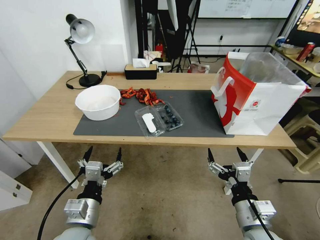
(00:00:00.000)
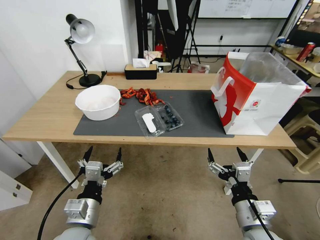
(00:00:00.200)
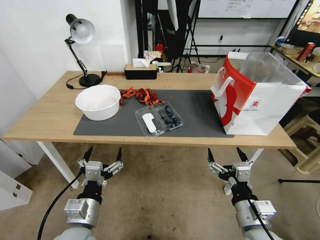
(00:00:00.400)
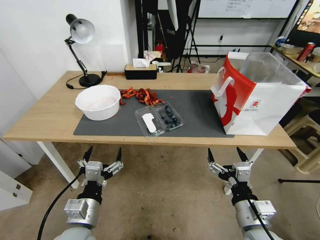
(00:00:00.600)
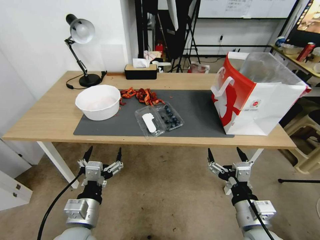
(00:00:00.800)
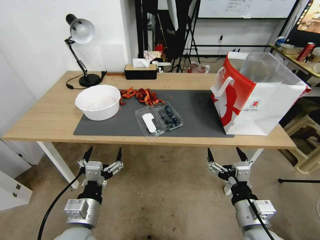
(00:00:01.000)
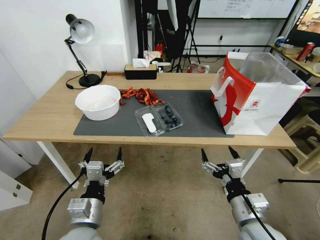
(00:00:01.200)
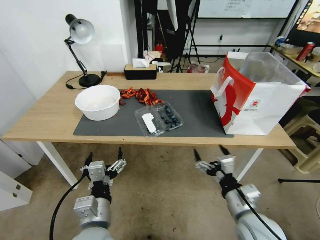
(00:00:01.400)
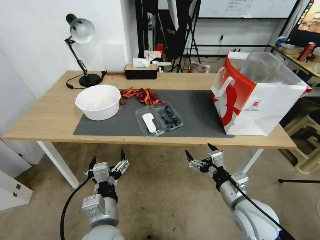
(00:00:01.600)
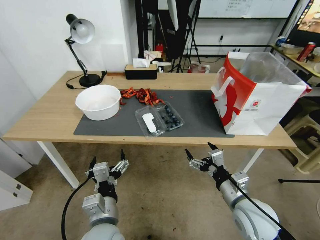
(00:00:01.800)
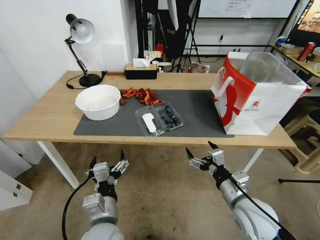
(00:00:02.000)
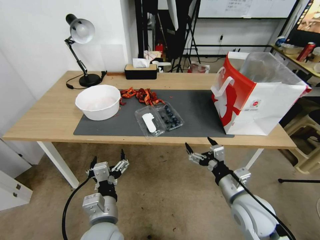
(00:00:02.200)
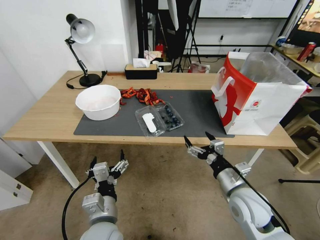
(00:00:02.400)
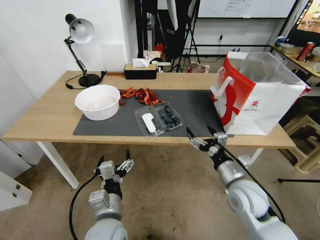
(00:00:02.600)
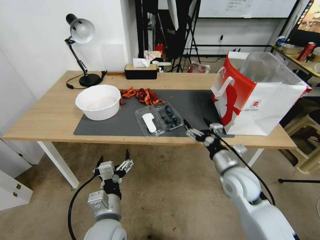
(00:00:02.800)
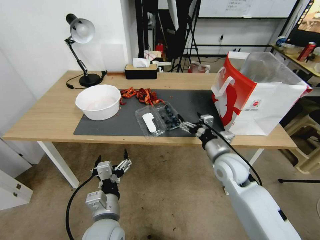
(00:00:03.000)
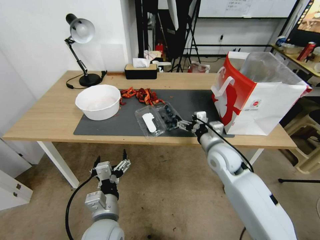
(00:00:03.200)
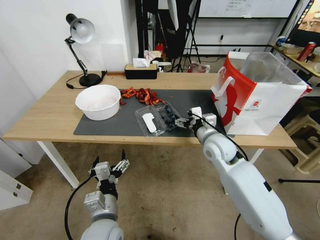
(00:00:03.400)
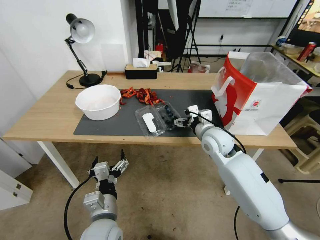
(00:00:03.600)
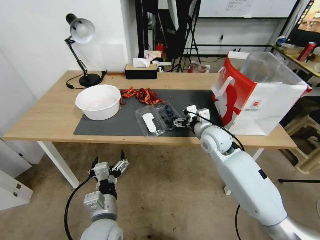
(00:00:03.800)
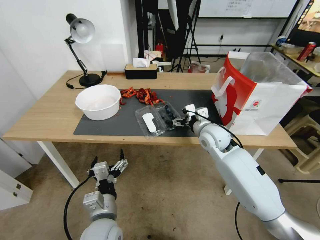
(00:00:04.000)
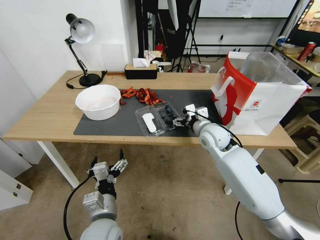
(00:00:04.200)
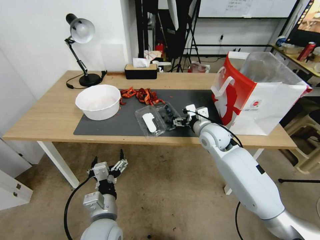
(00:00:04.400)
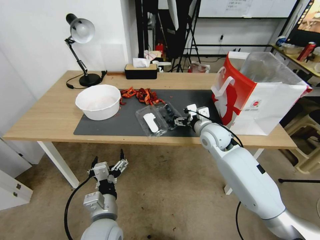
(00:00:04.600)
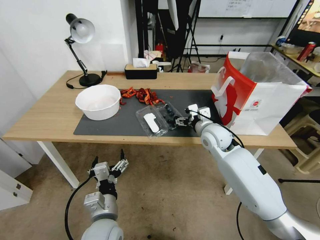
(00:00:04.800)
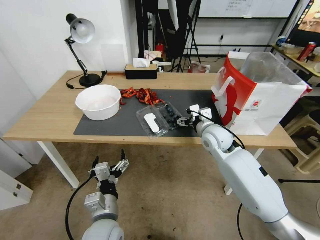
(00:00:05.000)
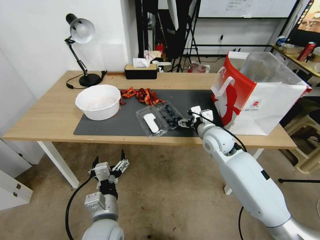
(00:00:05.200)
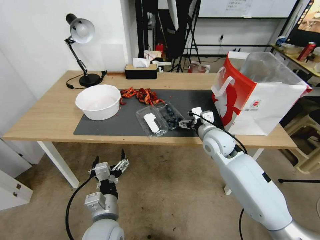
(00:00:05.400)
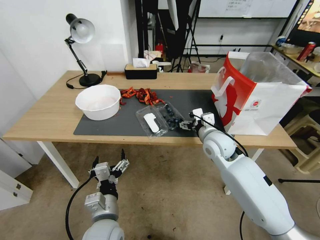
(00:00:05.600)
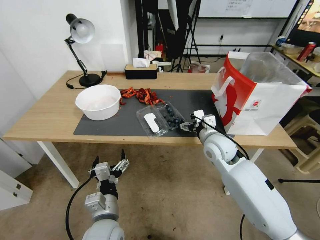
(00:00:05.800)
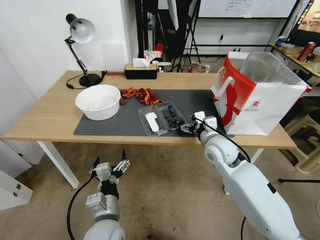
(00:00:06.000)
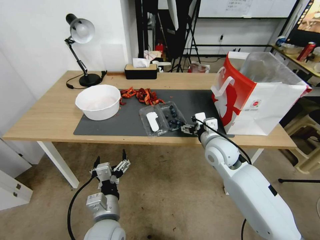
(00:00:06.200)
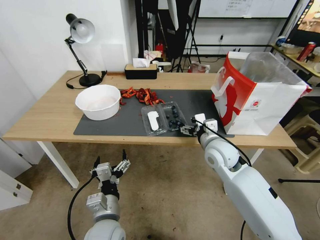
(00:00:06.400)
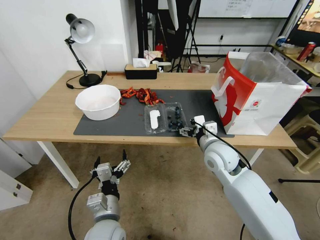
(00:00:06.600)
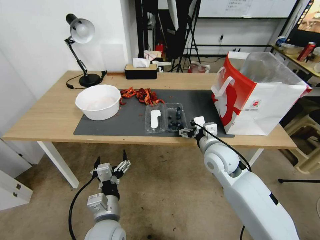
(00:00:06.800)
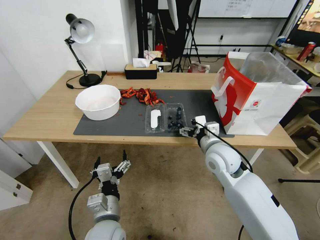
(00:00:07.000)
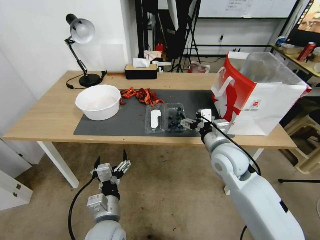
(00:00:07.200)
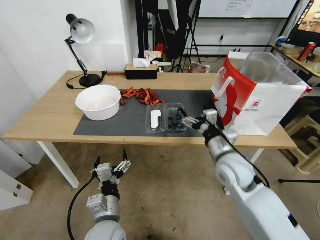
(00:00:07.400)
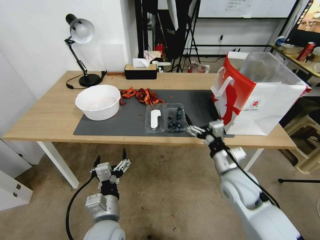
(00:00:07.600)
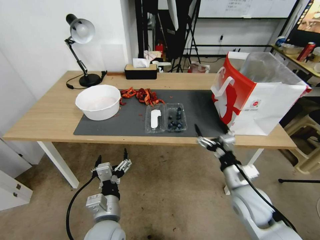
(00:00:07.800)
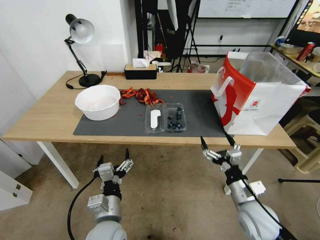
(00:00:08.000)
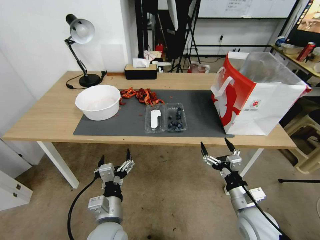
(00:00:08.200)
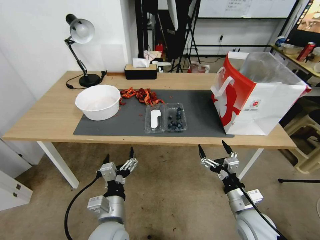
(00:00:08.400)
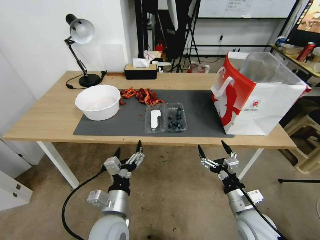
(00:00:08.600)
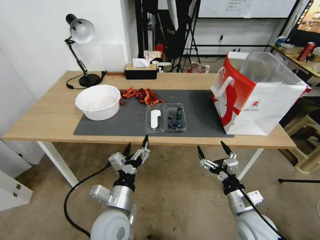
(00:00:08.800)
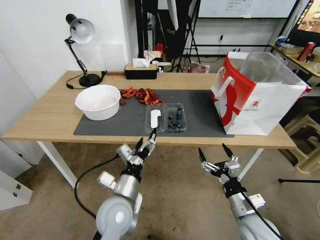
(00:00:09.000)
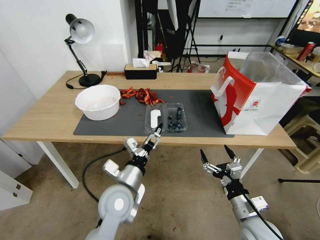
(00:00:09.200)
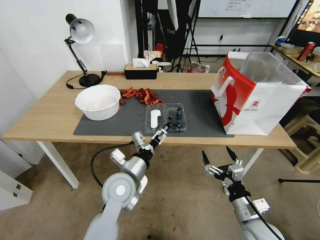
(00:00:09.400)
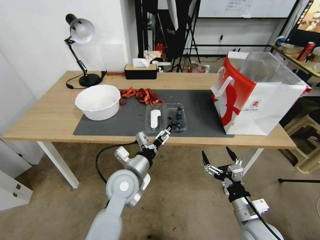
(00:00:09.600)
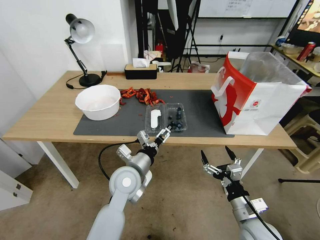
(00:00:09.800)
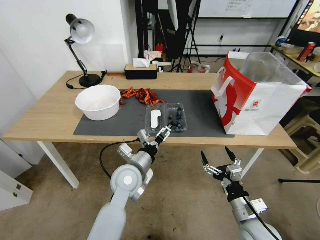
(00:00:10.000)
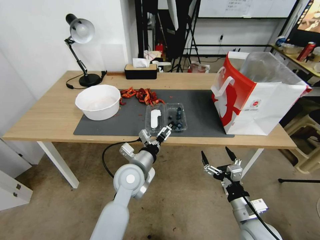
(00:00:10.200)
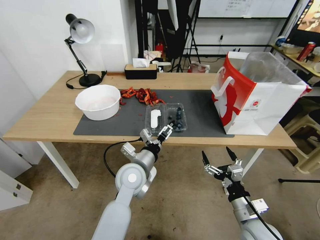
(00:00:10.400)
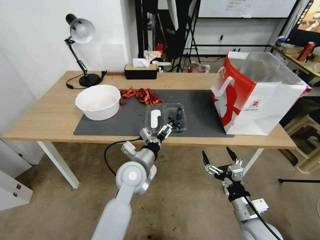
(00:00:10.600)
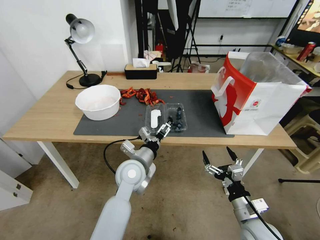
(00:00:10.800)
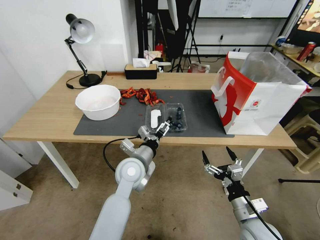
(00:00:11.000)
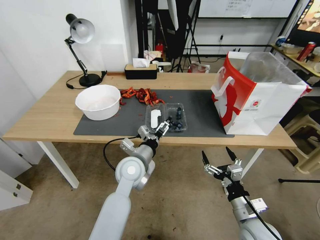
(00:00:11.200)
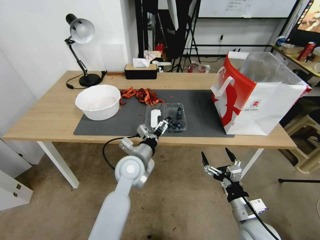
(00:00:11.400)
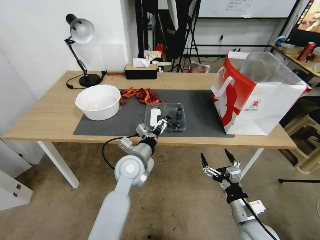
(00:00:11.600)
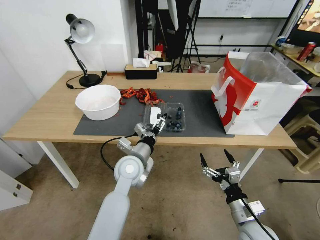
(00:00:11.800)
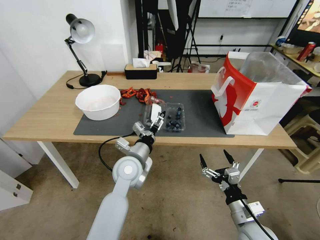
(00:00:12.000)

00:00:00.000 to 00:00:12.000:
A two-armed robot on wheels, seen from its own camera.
Task of the whole recording: Close the takeout container lid, then place the container into the takeout bag.
00:00:01.600 to 00:00:03.000: The right gripper goes approximately 15 cm forward.
00:00:03.000 to 00:00:04.400: The right gripper goes roughly 10 cm forward.
00:00:04.400 to 00:00:06.000: The right gripper shifts some 5 cm backward.
00:00:06.000 to 00:00:07.600: The right gripper travels backward by roughly 10 cm.
00:00:07.600 to 00:00:09.000: The left gripper shifts by some 5 cm. Meanwhile the right gripper is displaced backward and downward by roughly 15 cm.
00:00:09.000 to 00:00:10.400: The left gripper travels forward by approximately 10 cm.
00:00:10.400 to 00:00:12.000: The grippers move only a little.

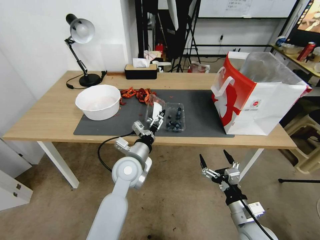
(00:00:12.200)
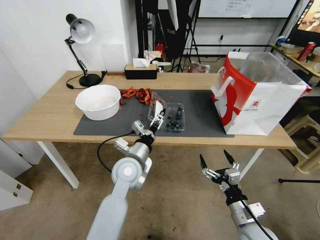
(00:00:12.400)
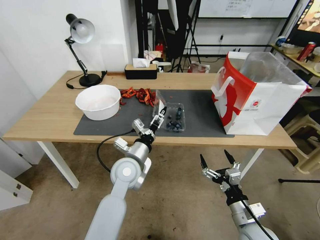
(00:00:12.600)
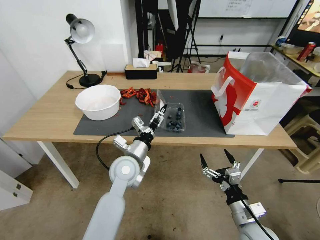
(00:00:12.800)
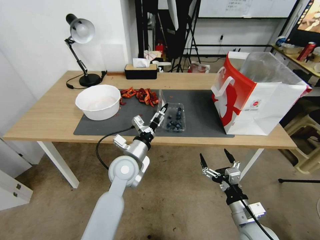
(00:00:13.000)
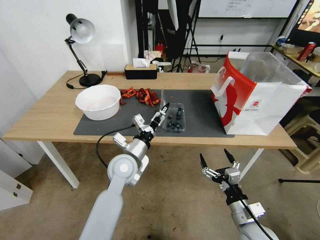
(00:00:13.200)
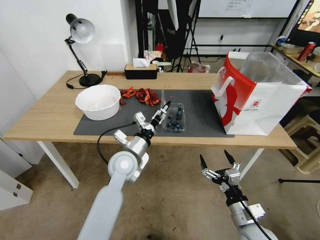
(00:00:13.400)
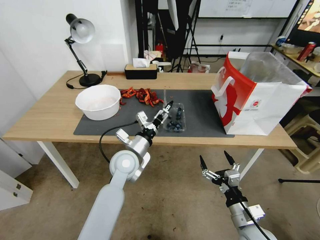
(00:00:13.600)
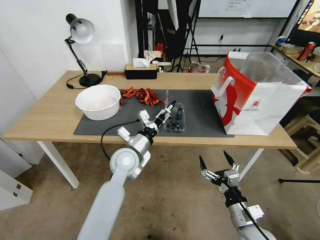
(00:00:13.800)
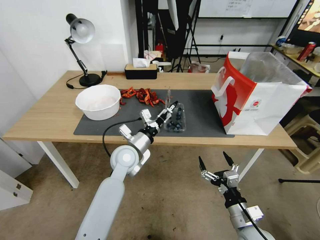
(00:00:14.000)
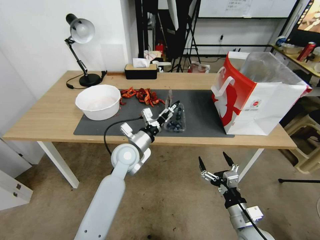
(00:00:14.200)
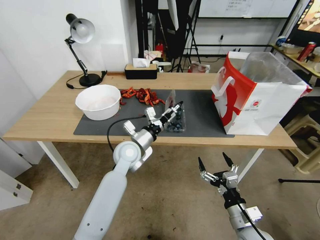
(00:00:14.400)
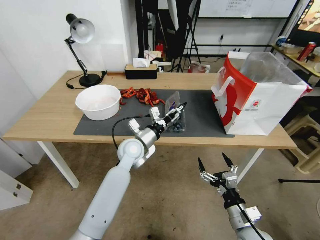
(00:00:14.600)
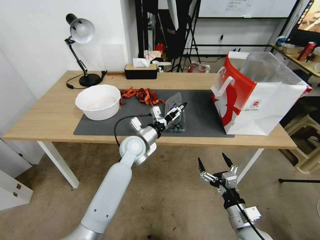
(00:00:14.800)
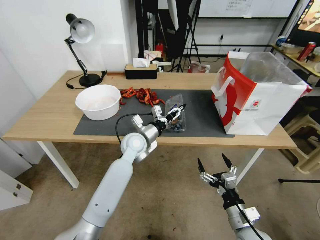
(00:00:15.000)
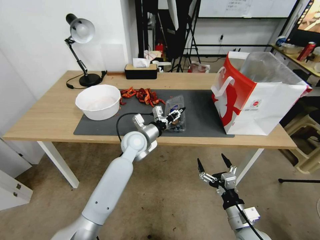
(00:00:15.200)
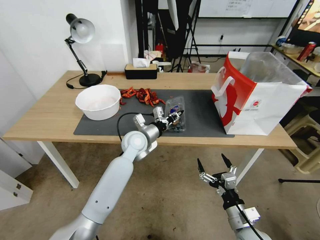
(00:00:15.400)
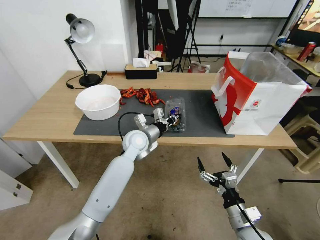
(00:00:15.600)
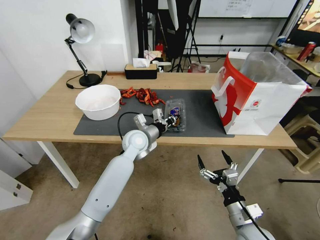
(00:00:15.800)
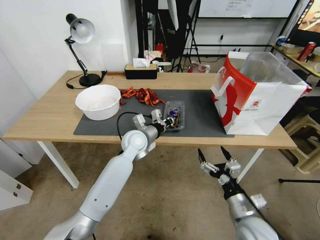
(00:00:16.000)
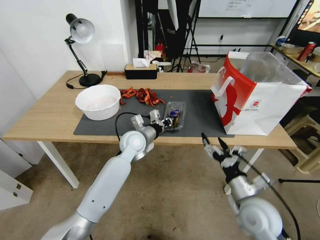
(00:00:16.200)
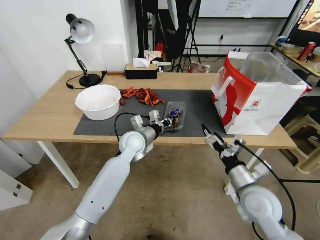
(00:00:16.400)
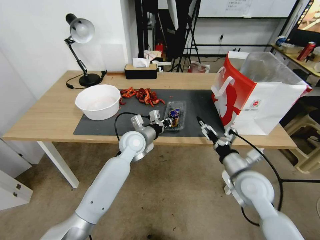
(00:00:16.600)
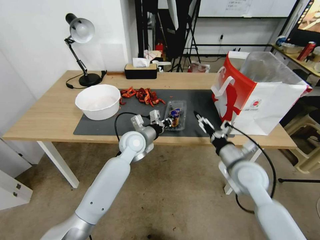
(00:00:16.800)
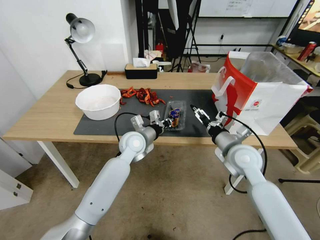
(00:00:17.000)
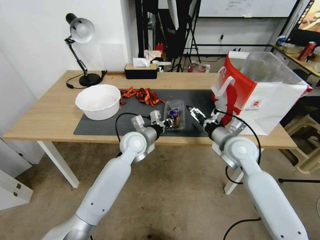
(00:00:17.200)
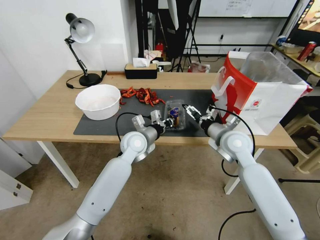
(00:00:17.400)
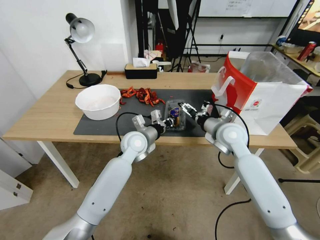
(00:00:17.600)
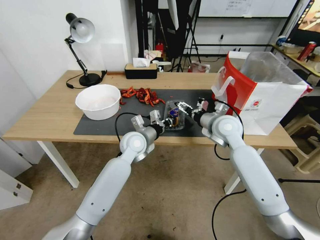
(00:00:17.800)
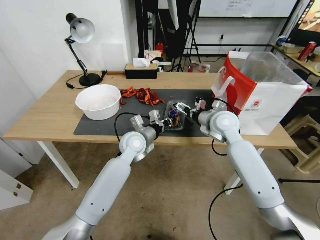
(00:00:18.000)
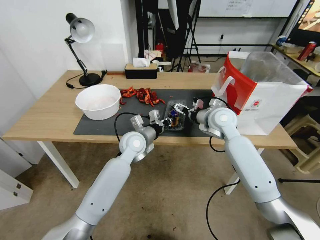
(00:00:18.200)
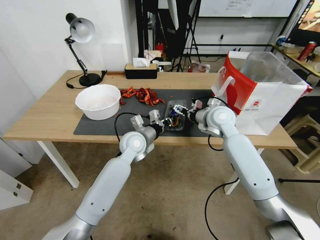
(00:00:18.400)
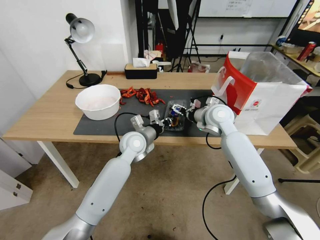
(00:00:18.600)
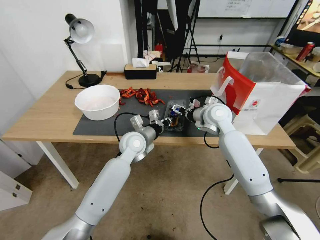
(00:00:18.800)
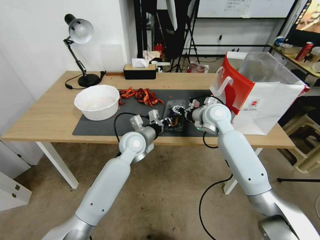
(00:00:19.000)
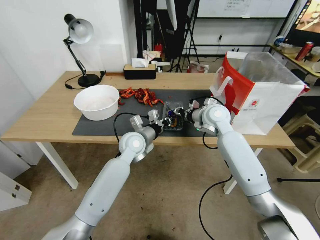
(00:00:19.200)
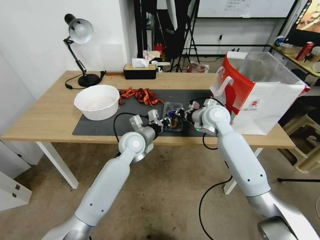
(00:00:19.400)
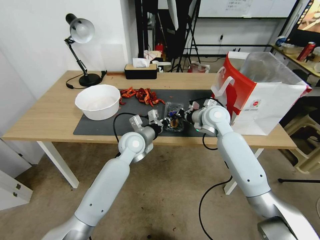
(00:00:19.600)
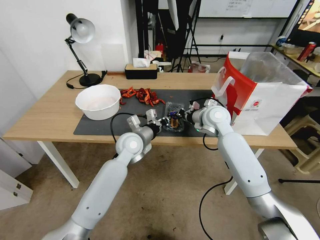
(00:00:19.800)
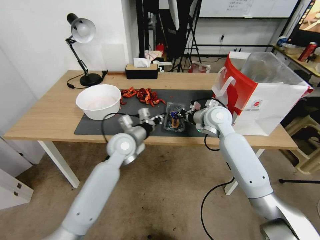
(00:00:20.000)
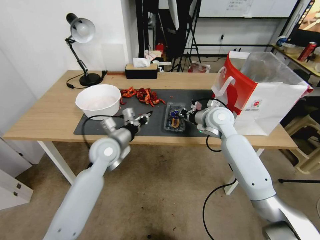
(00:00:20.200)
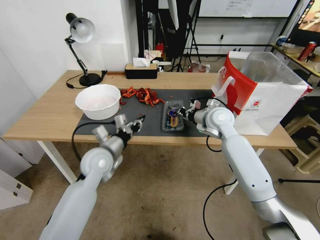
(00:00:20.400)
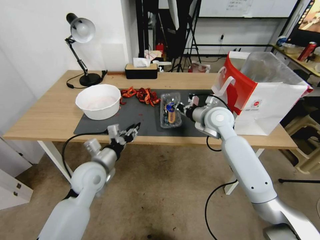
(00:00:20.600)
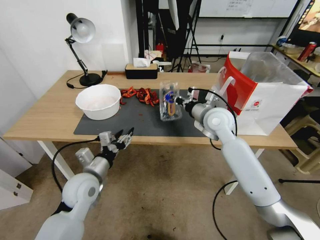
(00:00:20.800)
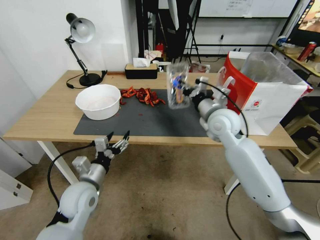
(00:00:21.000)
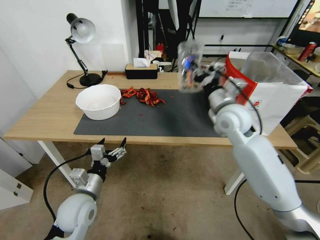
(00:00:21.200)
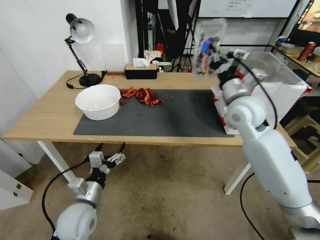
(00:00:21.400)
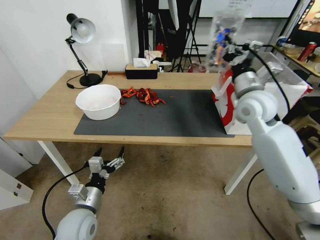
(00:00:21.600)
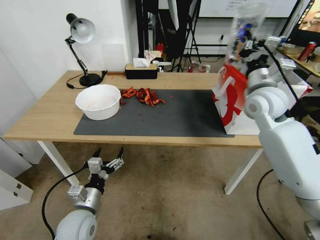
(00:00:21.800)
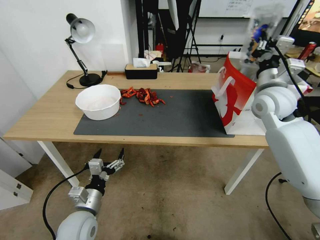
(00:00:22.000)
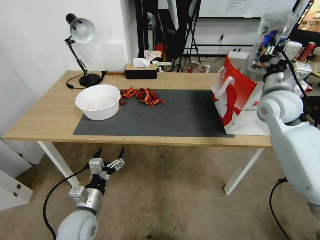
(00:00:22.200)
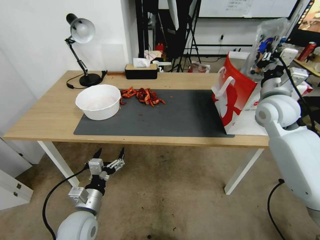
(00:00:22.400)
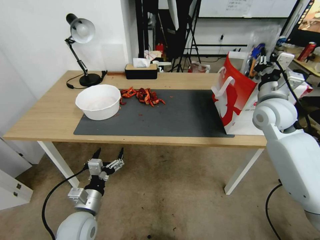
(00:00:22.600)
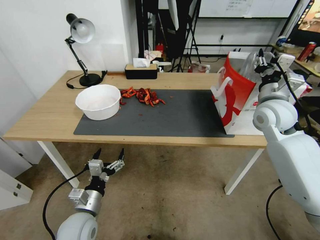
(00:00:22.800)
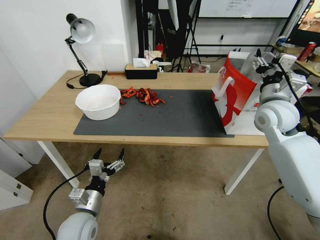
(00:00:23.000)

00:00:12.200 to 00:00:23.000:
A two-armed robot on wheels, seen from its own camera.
Task of the whole recording: Close the takeout container lid, then place the container into the takeout bag.
00:00:12.200 to 00:00:13.800: The grippers stay close to where they were, moving slightly.
00:00:13.800 to 00:00:15.200: The left gripper shifts about 5 cm forward, and closes its fingers.
00:00:15.200 to 00:00:16.800: The right gripper goes some 20 cm forward and upward. The left gripper closes up.
00:00:16.800 to 00:00:18.400: The right gripper heads forward and upward, covering about 15 cm.
00:00:18.400 to 00:00:20.000: The right gripper closes its fingers.
00:00:20.000 to 00:00:21.400: The left gripper is displaced backward, to the left and downward by some 25 cm, and opens its fingers. Meanwhile the right gripper is displaced upward and backward by approximately 10 cm.
00:00:21.400 to 00:00:23.000: The right gripper goes about 10 cm to the right, and opens its fingers.
